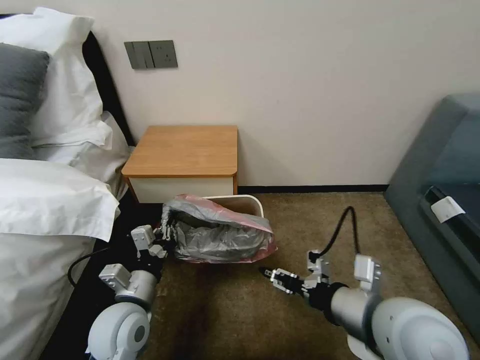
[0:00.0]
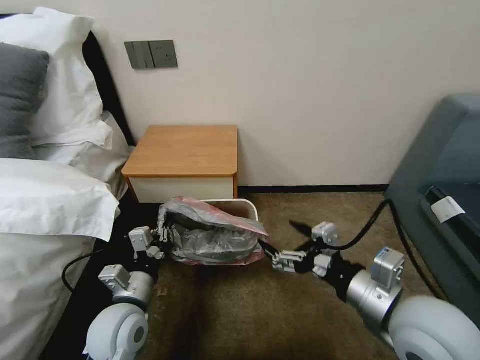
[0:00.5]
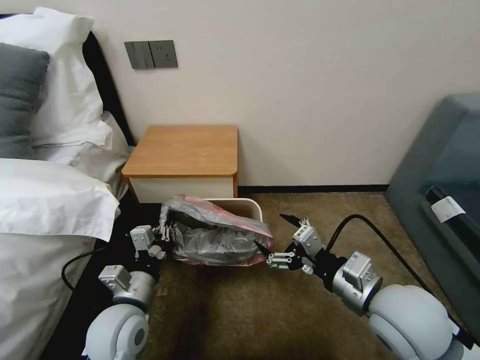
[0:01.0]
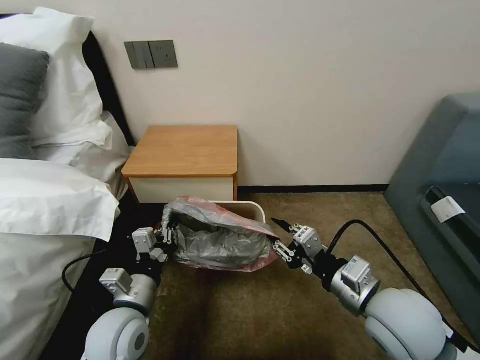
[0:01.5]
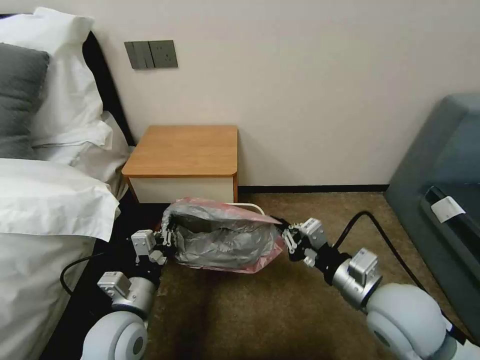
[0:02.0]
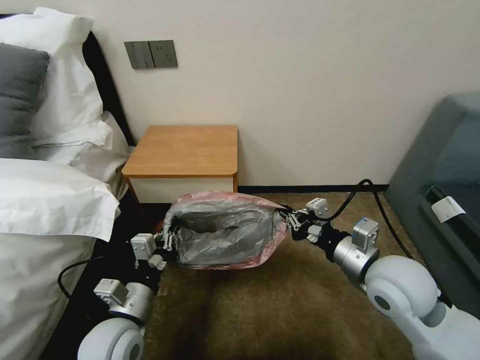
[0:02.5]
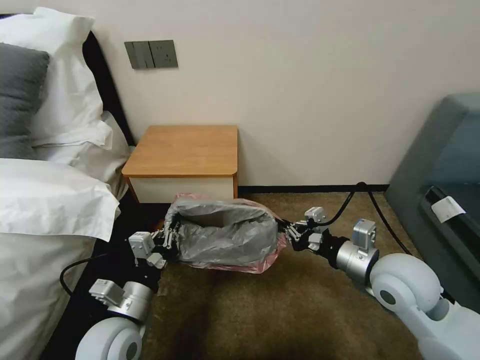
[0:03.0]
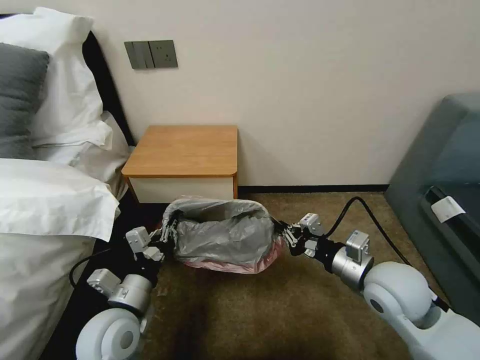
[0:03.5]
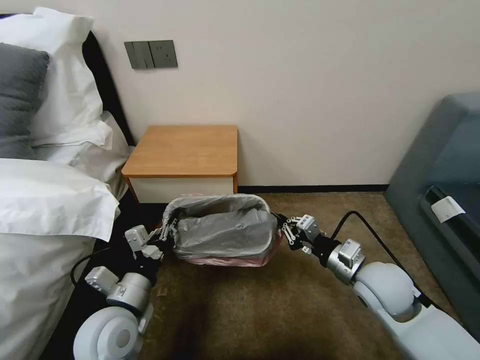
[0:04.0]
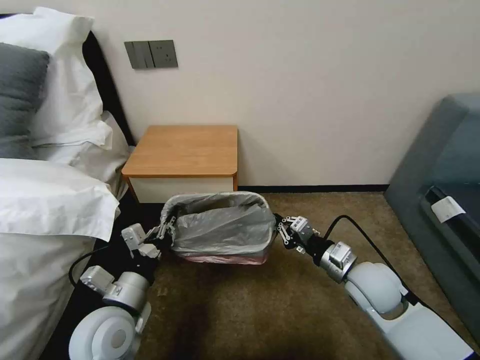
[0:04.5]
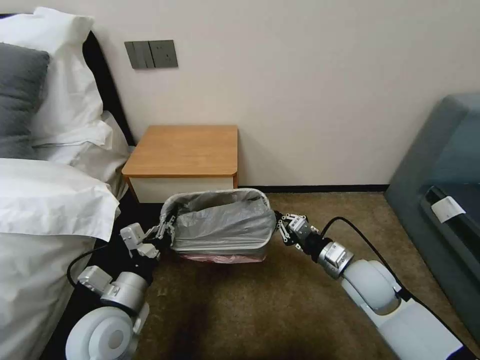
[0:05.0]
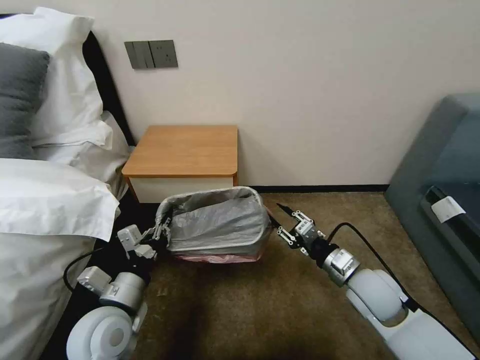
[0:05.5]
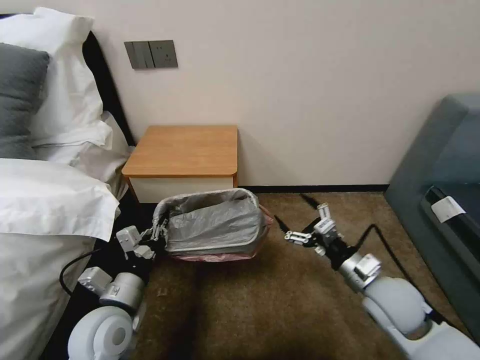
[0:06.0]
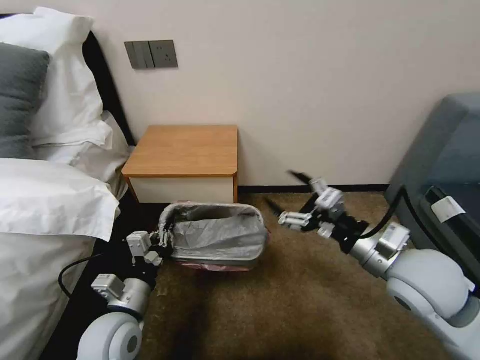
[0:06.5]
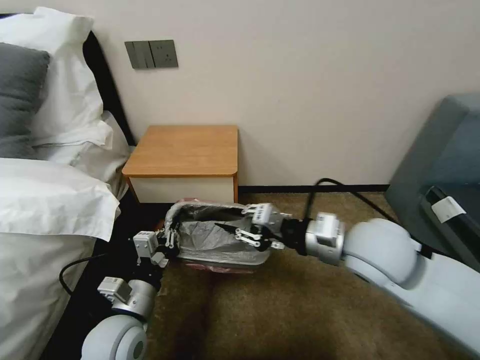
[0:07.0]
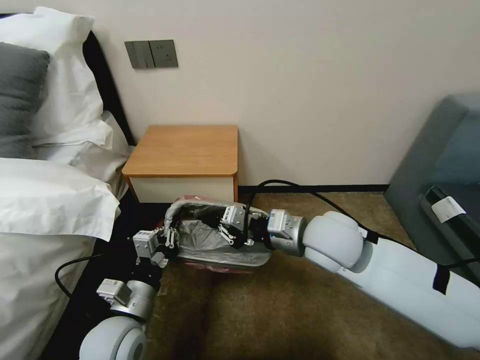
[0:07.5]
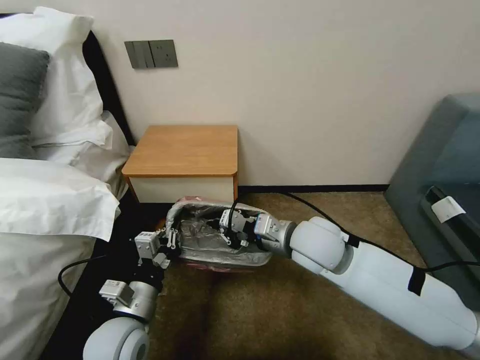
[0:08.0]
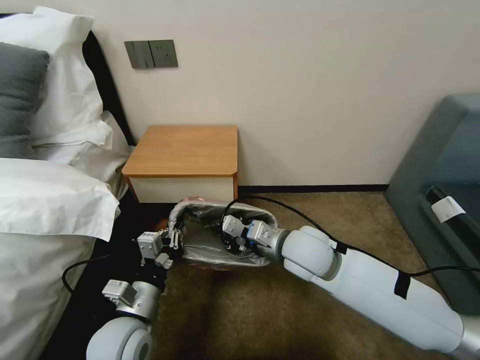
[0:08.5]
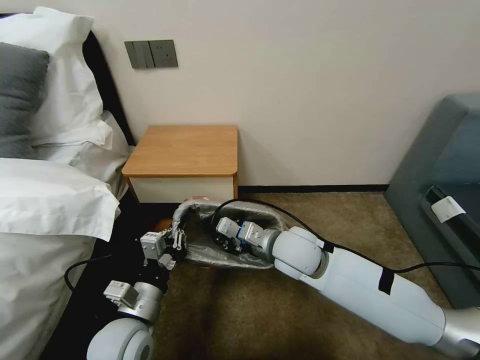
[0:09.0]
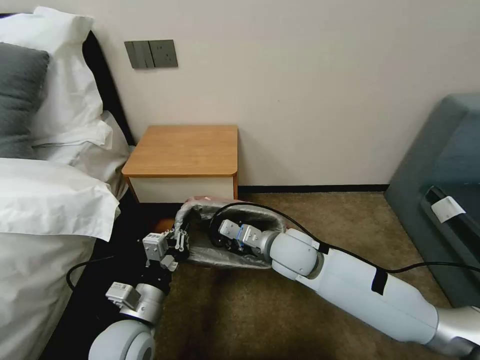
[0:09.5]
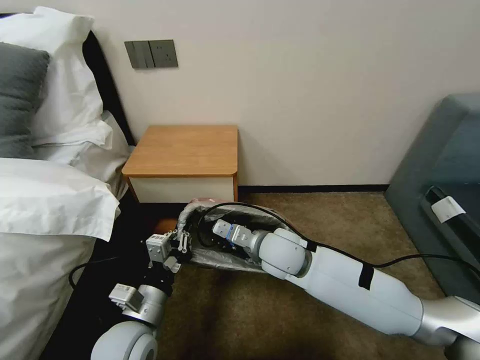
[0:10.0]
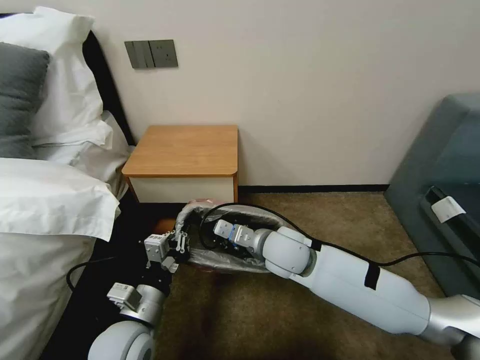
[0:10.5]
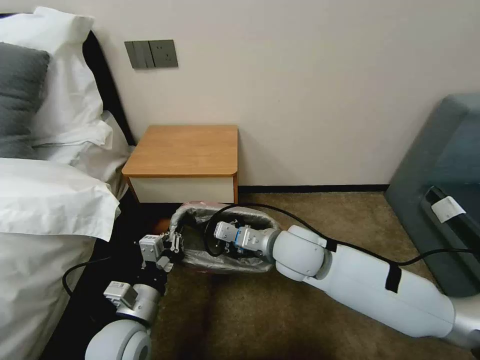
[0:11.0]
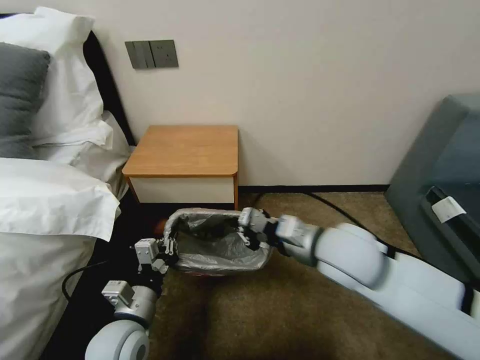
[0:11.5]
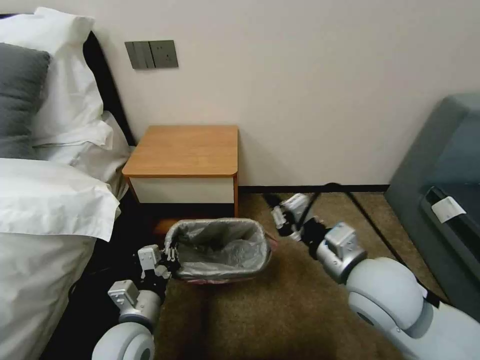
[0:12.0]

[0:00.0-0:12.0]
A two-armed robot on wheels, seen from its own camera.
Task of the whole recording: Pick up the garbage bag from the table and place it over the trash can.
0:00.0 to 0:02.0: The right gripper shifts by about 5 cm, and closes up.
0:02.0 to 0:04.0: The right gripper moves forward and downward, about 10 cm.
0:04.0 to 0:06.0: The right gripper opens up.
0:06.0 to 0:08.0: The right gripper shifts about 20 cm to the left, upward and forward, and closes its fingers.
0:08.0 to 0:10.0: The right gripper heads downward and to the left, covering roughly 10 cm.
0:10.0 to 0:12.0: The right gripper goes about 20 cm to the right, backward and upward.

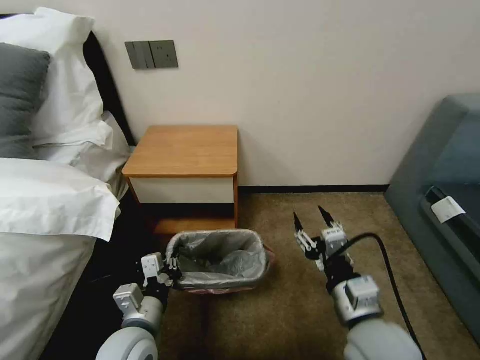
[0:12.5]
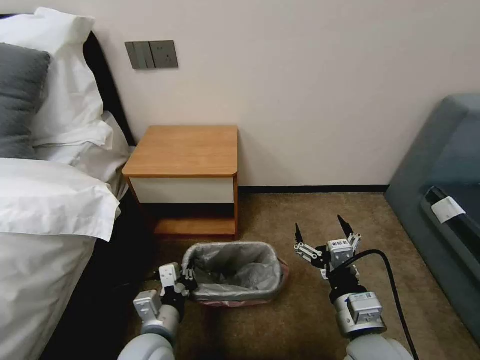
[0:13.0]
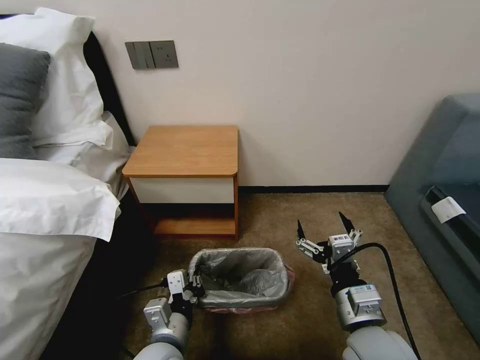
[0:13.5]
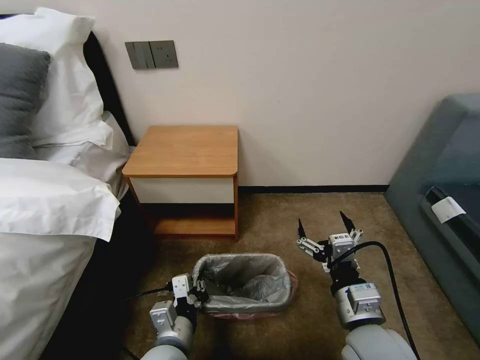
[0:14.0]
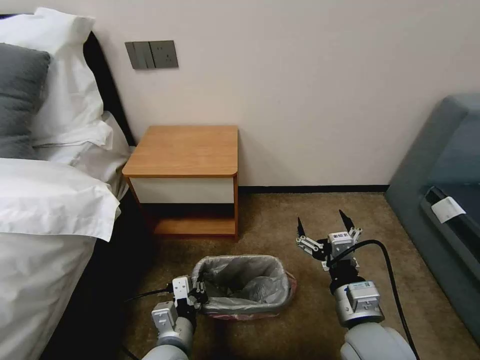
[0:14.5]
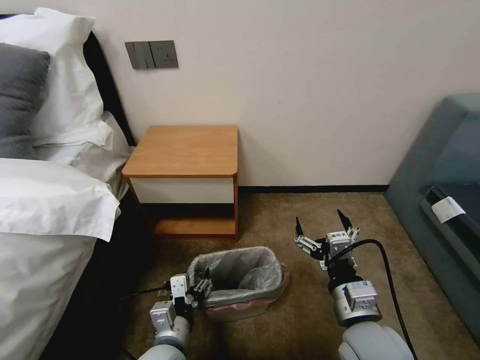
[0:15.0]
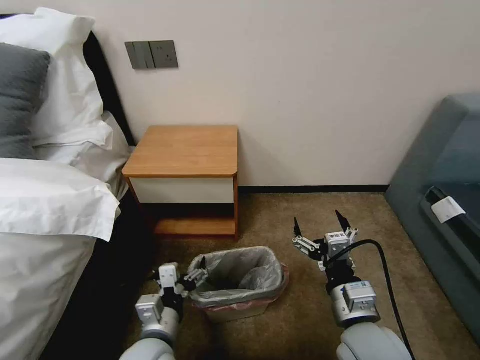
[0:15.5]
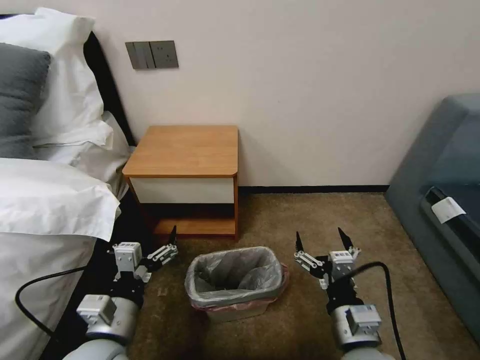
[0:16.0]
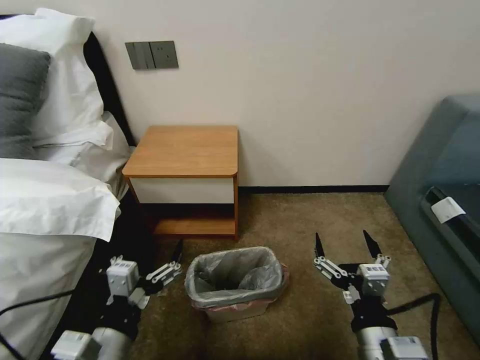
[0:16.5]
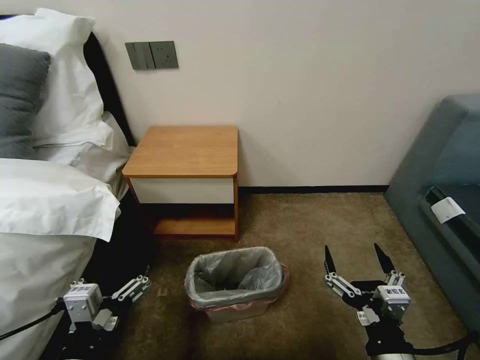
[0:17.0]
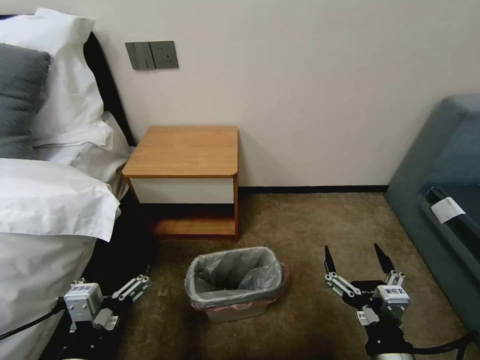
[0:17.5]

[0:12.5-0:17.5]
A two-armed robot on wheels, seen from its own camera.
Task of the whole recording: Pick up the garbage bag from the table and place it over the trash can.
0:12.5 to 0:15.0: The right gripper opens up, while the left gripper moves to the right, roughly 5 cm, and opens.
0:15.0 to 0:17.5: The right gripper travels backward by about 10 cm. Meanwhile the left gripper shifts some 15 cm upward, backward and to the left, and opens up.

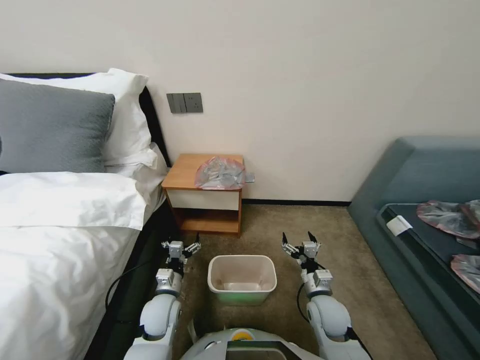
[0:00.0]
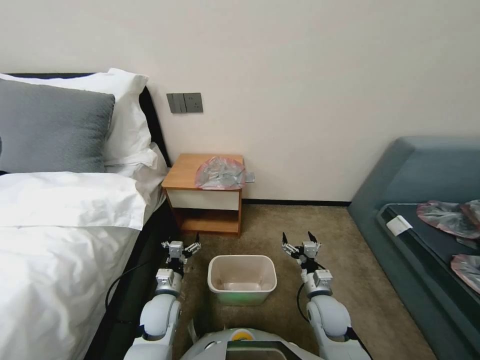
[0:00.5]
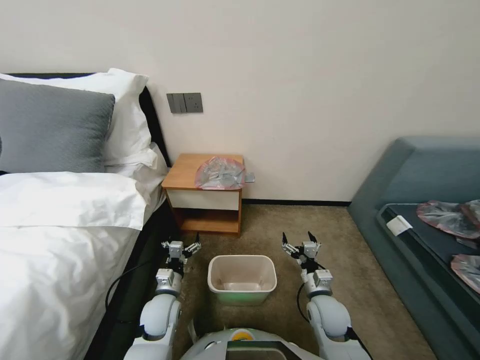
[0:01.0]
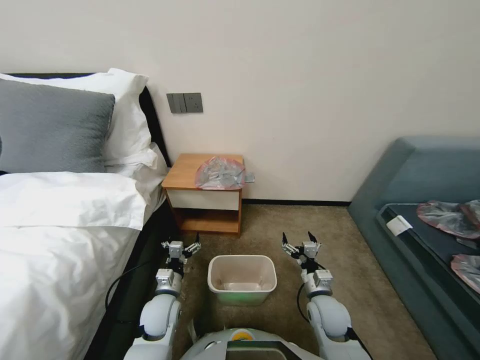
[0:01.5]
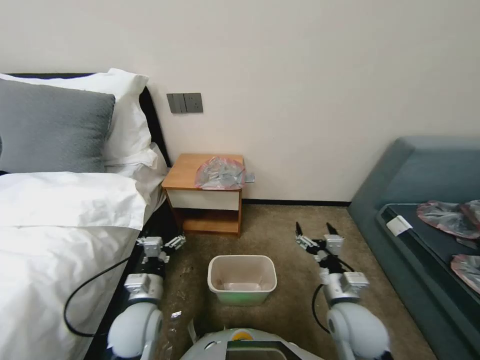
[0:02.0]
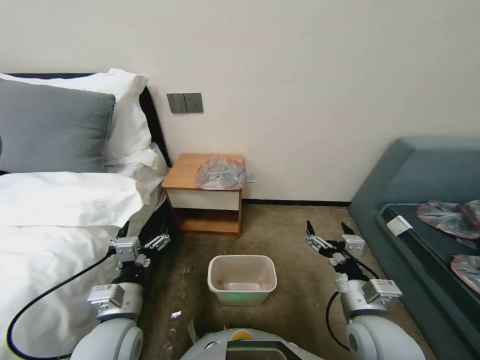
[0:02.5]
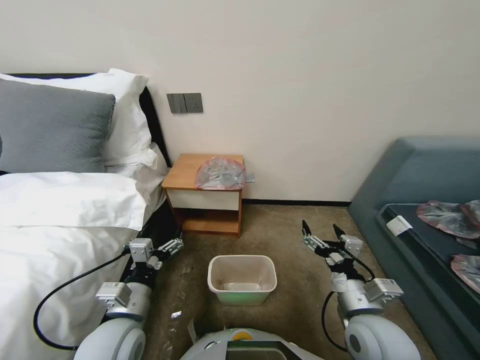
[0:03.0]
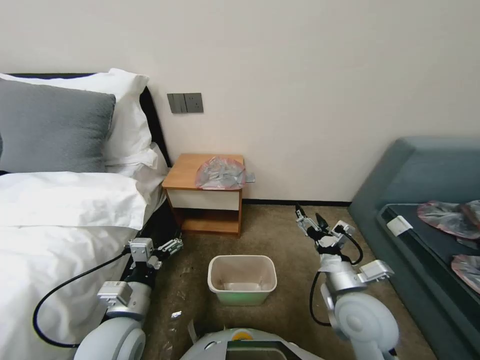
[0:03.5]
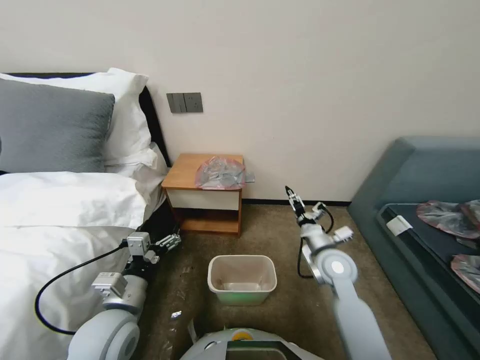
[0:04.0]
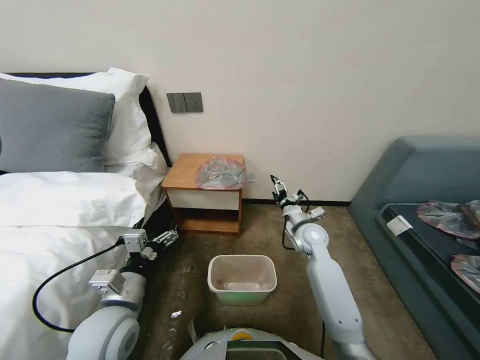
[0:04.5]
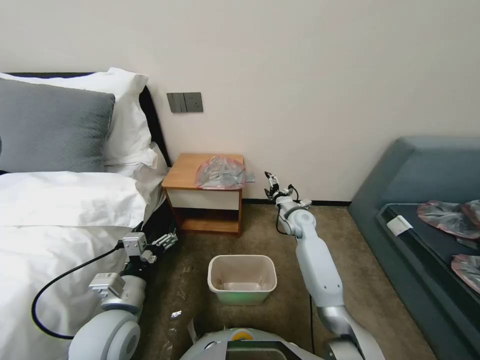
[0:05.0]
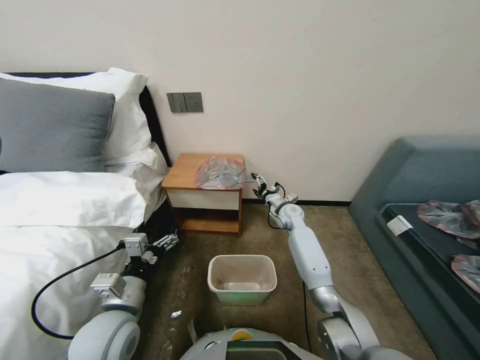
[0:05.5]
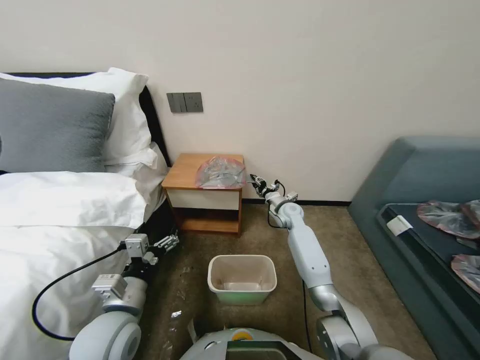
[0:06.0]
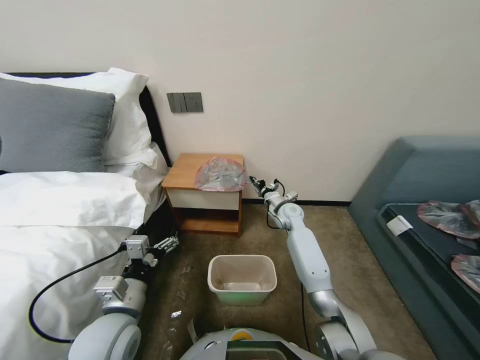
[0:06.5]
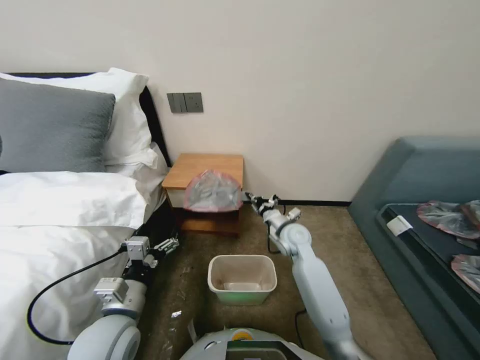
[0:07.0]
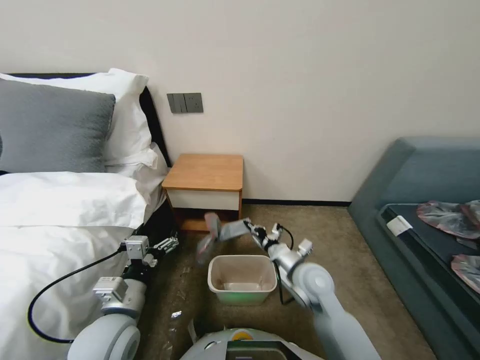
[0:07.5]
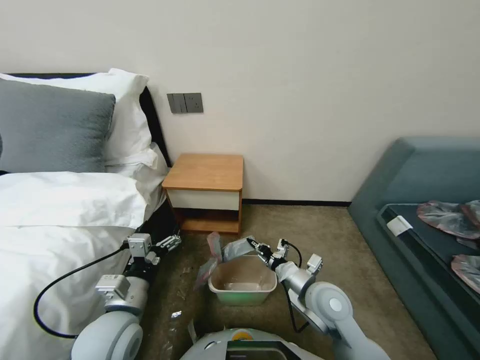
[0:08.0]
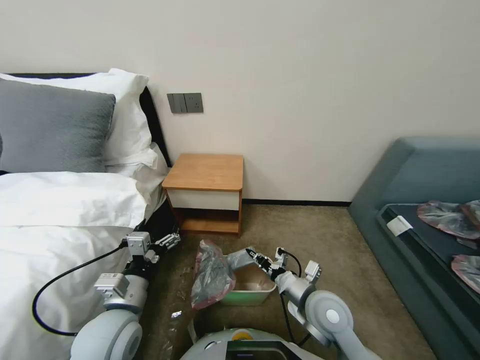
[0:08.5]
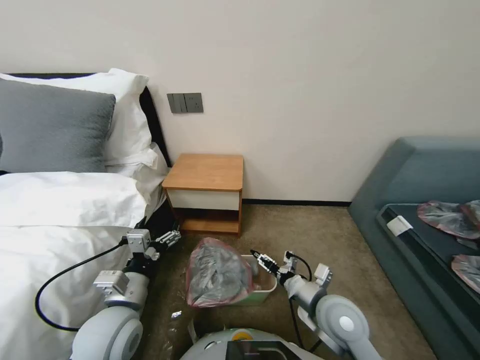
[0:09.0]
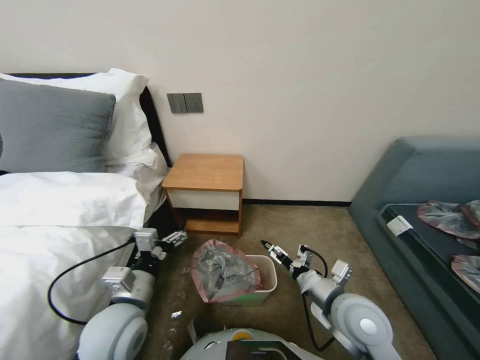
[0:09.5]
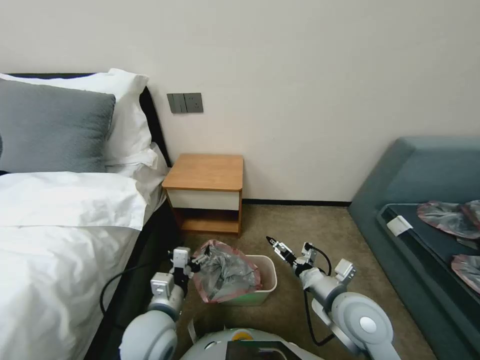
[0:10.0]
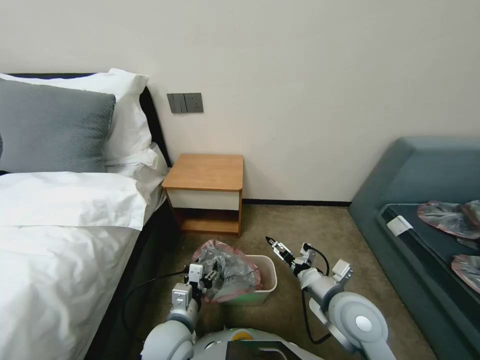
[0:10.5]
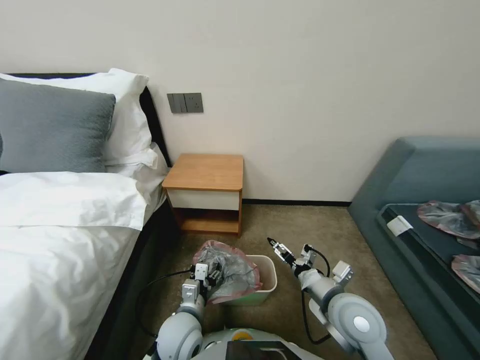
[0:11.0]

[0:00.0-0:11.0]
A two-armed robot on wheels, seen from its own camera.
Task of the whole recording: Pick up the garbage bag from the table and place it over the trash can.
0:02.0 to 0:03.5: The right gripper heads upward, covering roughly 10 cm, while the left gripper moves upward and backward, approximately 10 cm.
0:03.5 to 0:05.5: The right gripper moves forward, approximately 35 cm.
0:05.5 to 0:07.5: The right gripper moves backward, approximately 20 cm, and closes.
0:07.5 to 0:09.0: The right gripper shifts about 10 cm backward, and opens.
0:09.0 to 0:11.0: The right gripper opens its fingers. Meanwhile the left gripper heads to the right and downward, covering some 15 cm.
